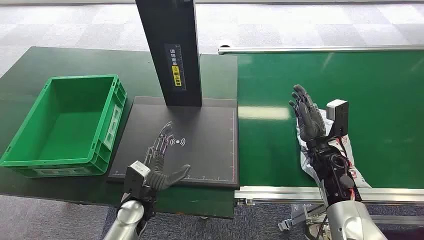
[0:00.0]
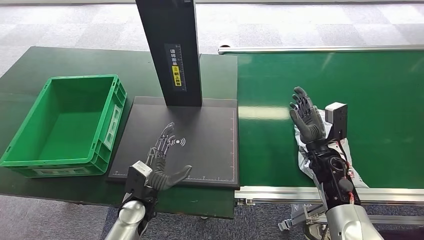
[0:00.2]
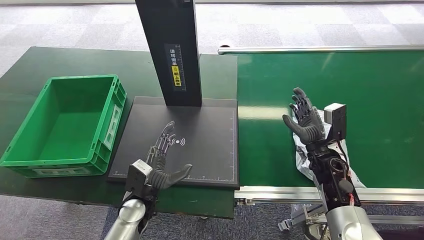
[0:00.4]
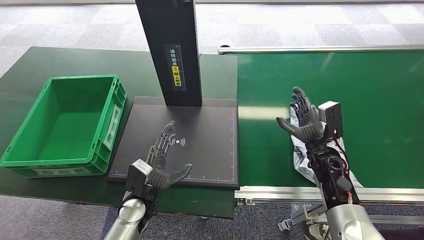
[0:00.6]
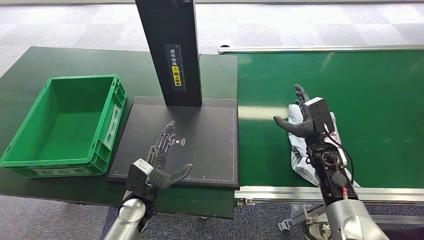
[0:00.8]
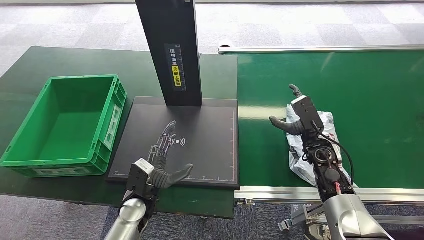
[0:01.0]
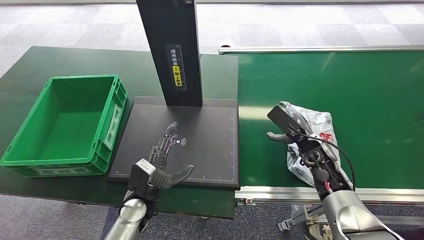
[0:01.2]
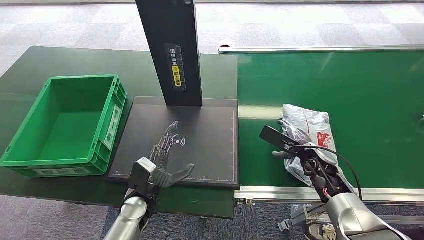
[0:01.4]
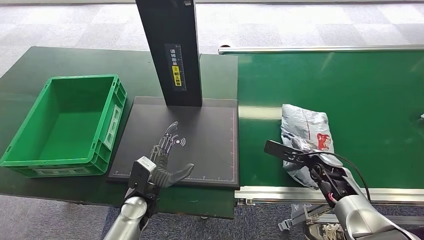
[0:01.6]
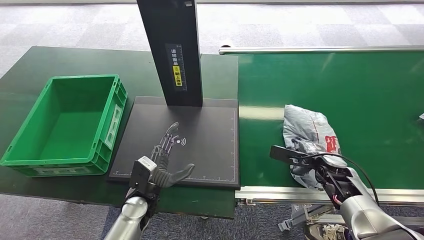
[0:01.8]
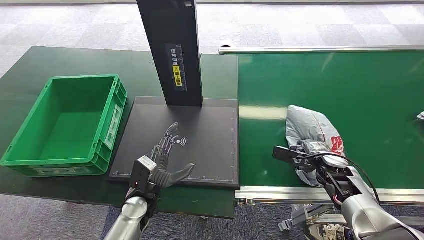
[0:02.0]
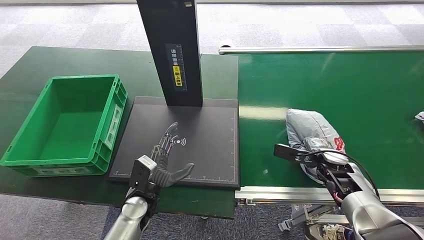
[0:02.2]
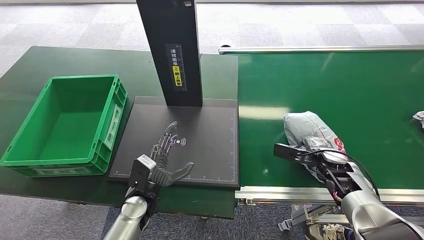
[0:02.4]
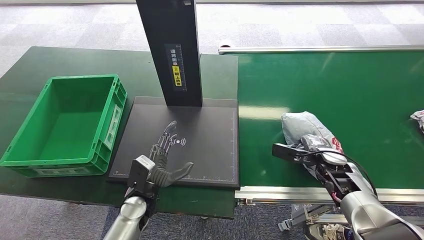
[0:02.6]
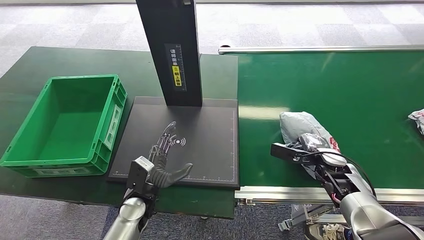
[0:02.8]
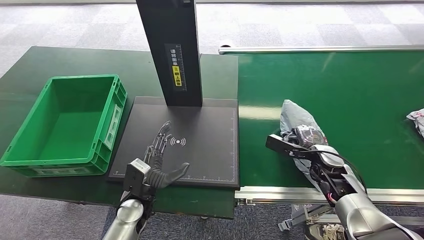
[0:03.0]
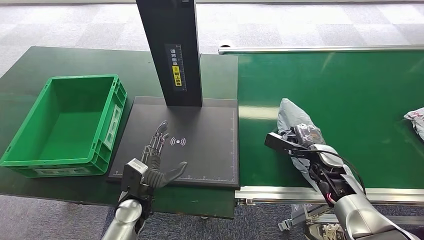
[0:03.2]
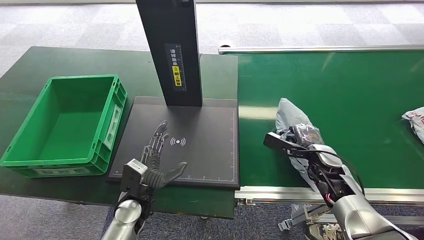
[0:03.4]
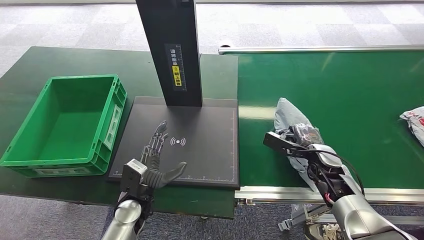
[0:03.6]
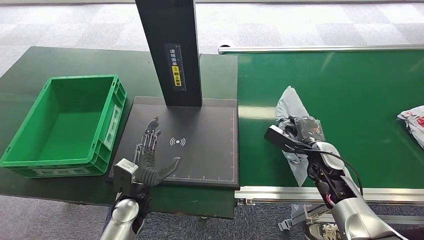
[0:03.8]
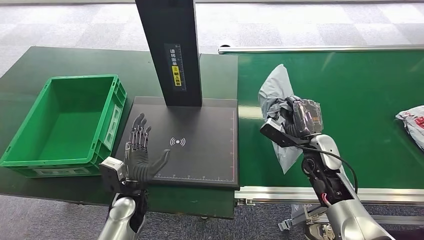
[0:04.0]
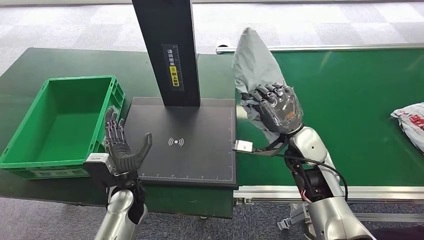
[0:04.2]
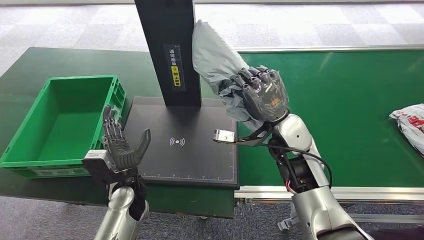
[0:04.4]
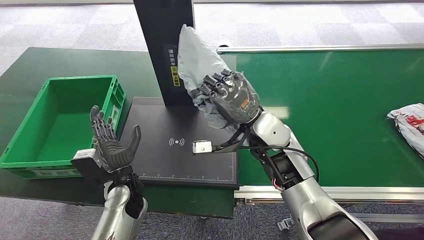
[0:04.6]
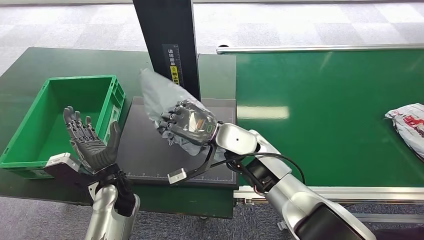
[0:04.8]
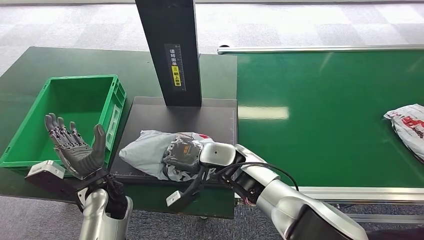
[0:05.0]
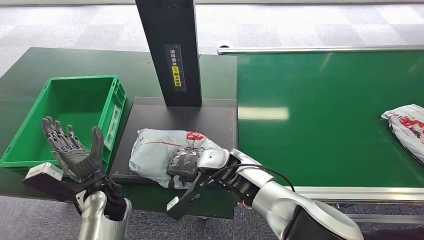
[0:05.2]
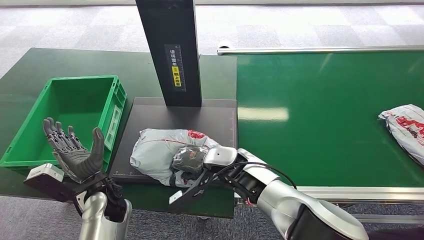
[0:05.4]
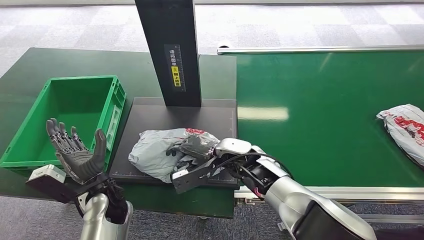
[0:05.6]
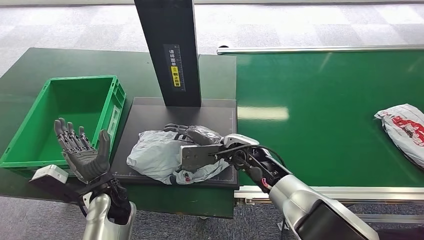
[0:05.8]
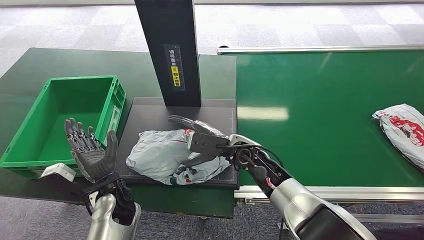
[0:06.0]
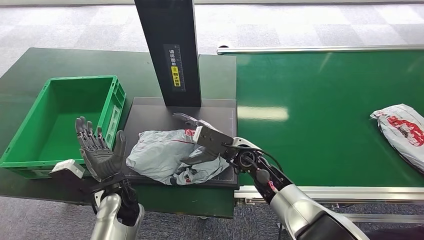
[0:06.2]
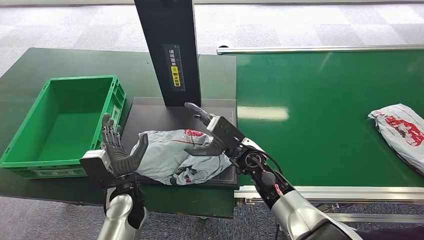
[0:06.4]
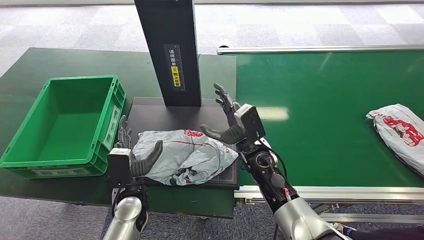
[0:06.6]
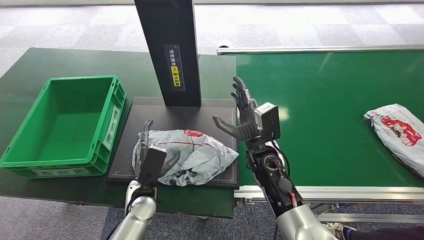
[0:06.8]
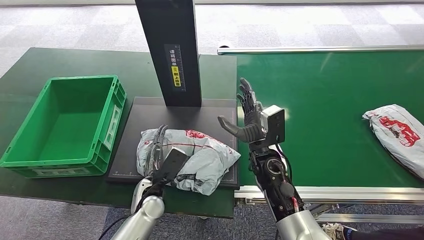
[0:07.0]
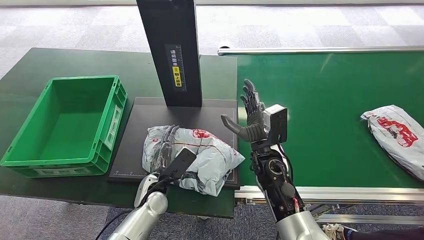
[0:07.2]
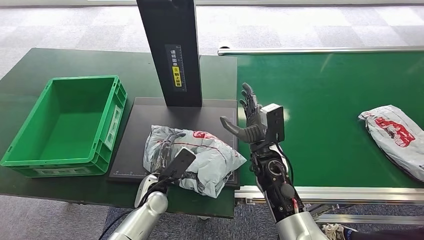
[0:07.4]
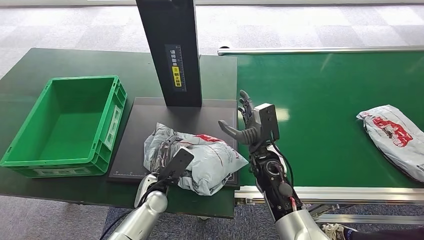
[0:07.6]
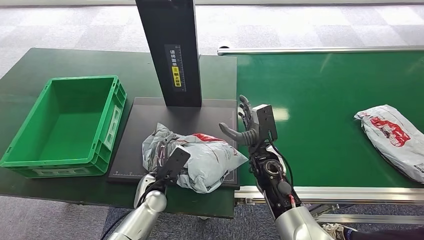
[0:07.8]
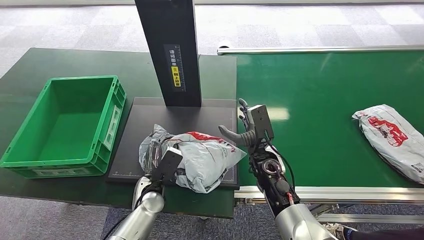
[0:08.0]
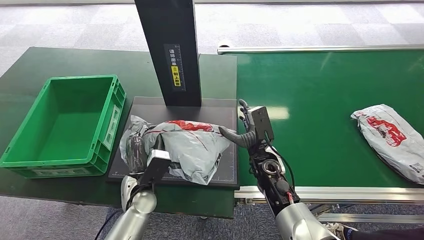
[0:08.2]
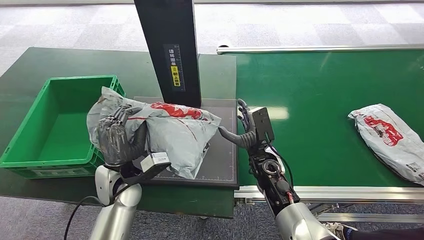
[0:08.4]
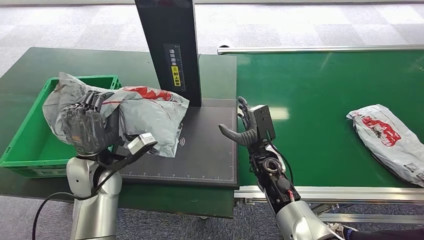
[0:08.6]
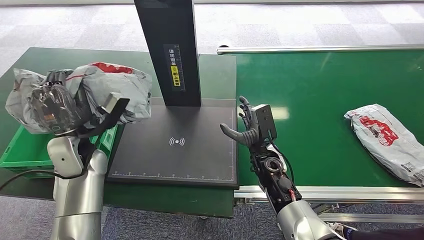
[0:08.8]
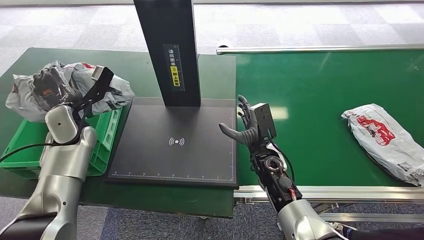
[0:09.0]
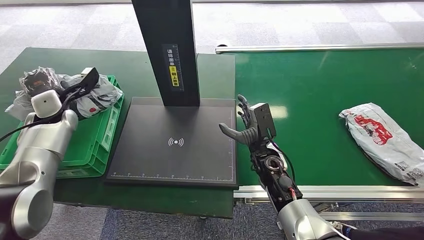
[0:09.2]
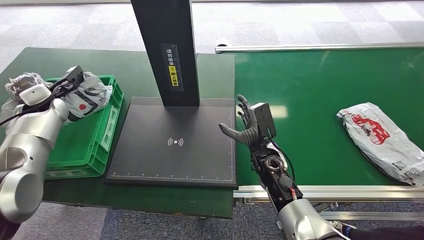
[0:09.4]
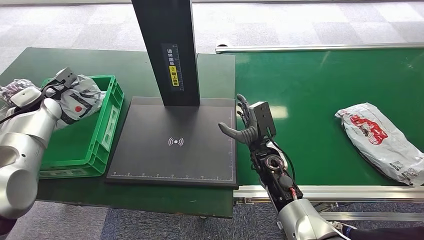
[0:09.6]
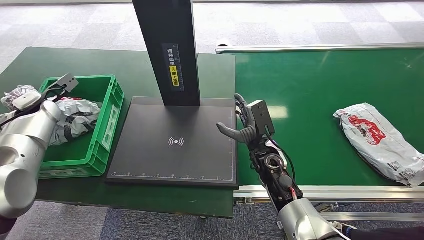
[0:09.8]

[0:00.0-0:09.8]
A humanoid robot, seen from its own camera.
Step, 0:00.0 to 0:04.0: Pick up the package from the conveyor belt.
Step, 0:04.4 to 0:05.8: Place the package onto the inbound machine.
Step, 0:06.0 to 0:08.2: Pick up the package from the inbound machine.
Step, 0:08.6 to 0:09.8: Place the package into the parcel locker.
0:05.6 to 0:07.0: The left hand travels to the right and downward by some 10 cm, while the right hand moves to the right, approximately 5 cm.

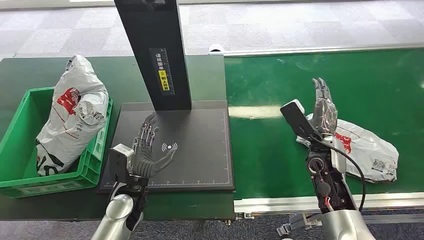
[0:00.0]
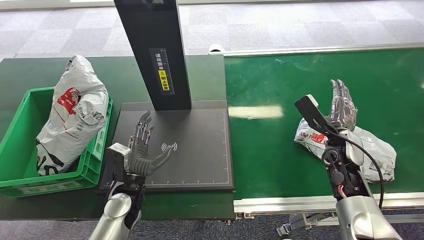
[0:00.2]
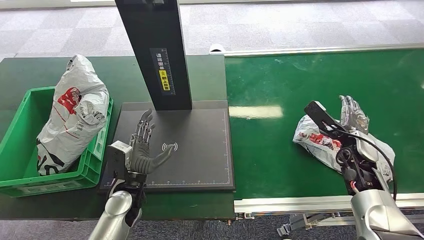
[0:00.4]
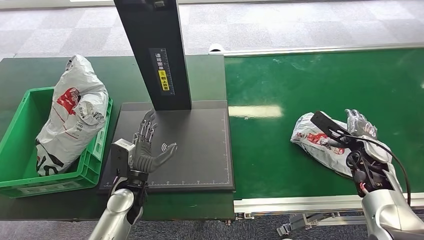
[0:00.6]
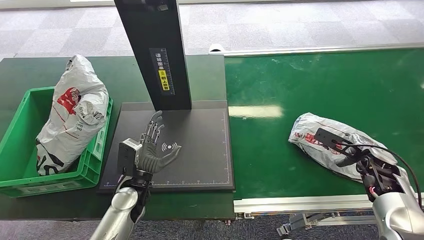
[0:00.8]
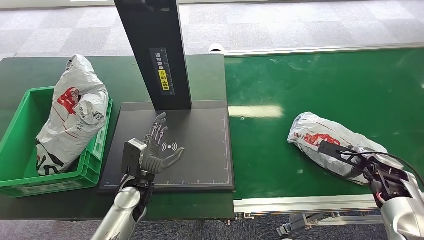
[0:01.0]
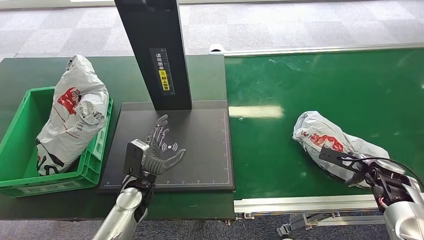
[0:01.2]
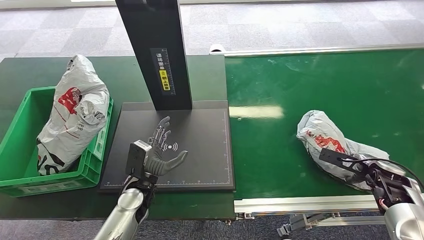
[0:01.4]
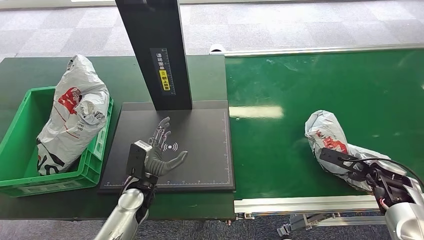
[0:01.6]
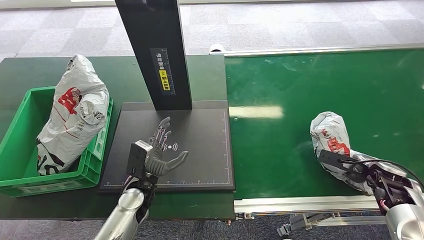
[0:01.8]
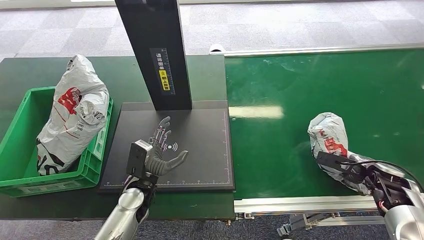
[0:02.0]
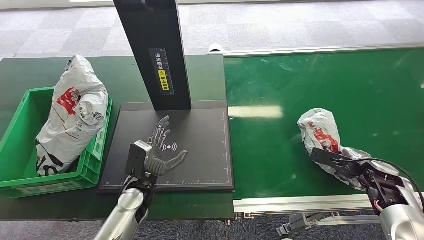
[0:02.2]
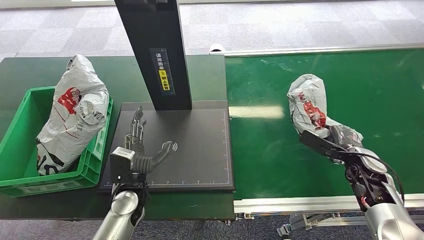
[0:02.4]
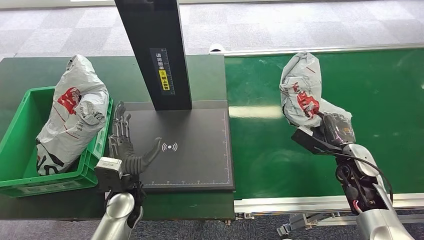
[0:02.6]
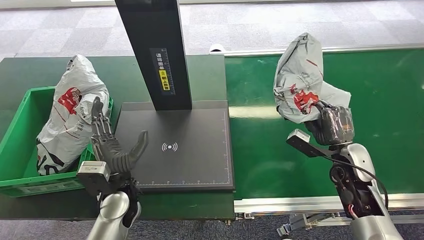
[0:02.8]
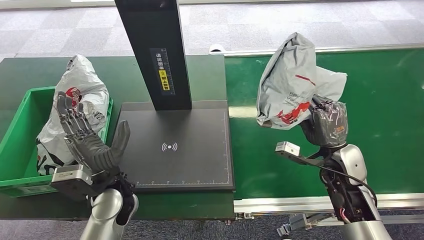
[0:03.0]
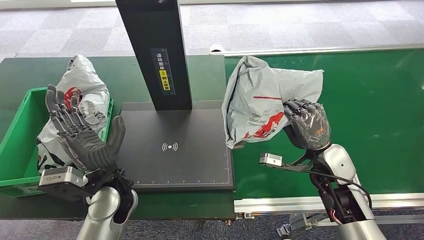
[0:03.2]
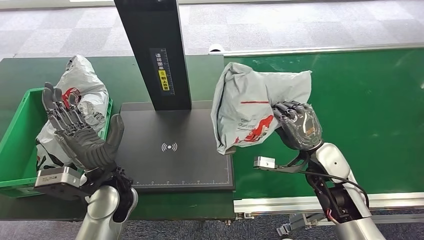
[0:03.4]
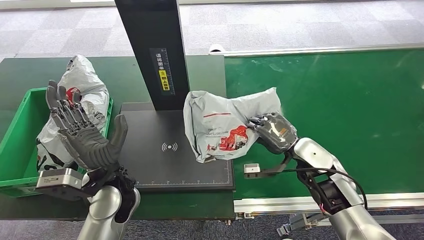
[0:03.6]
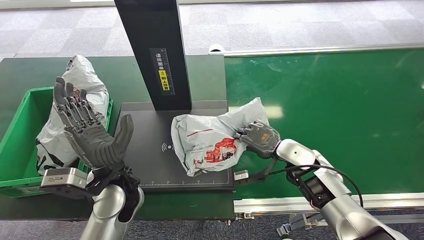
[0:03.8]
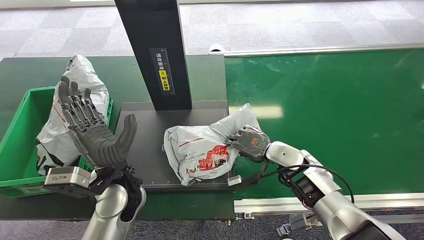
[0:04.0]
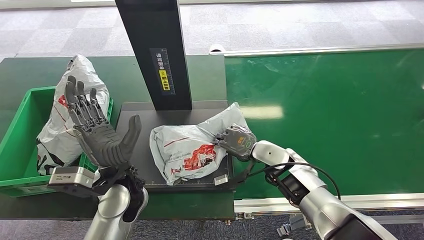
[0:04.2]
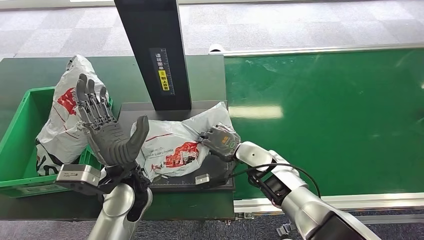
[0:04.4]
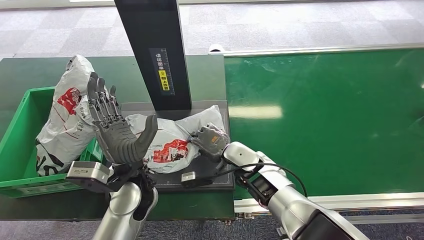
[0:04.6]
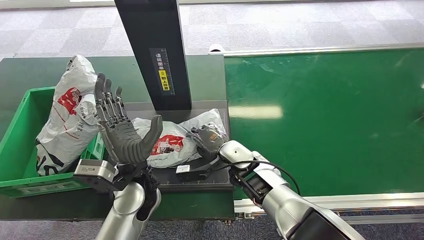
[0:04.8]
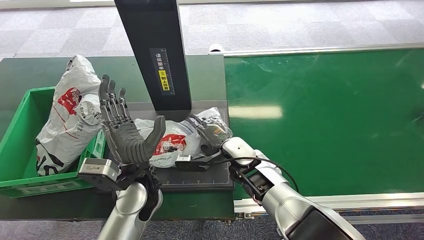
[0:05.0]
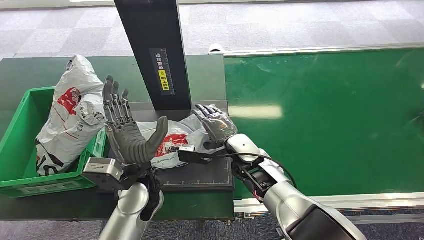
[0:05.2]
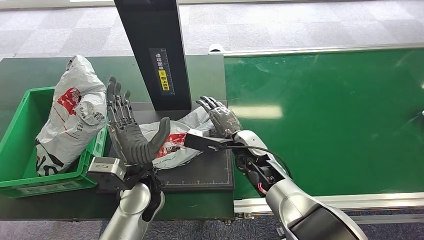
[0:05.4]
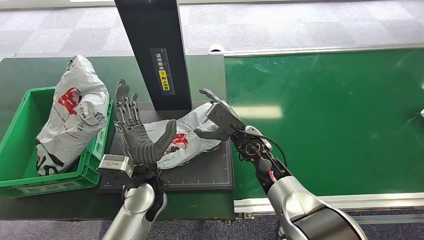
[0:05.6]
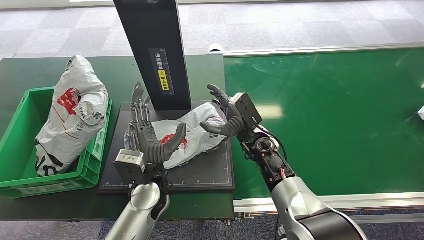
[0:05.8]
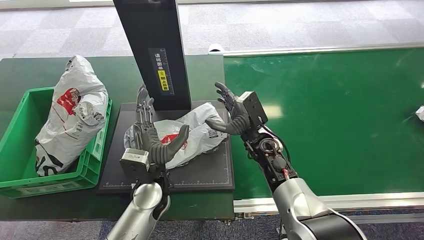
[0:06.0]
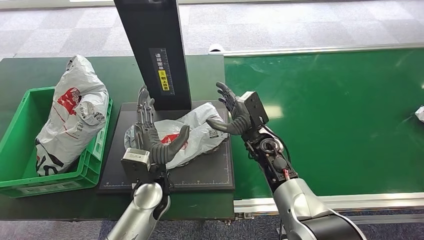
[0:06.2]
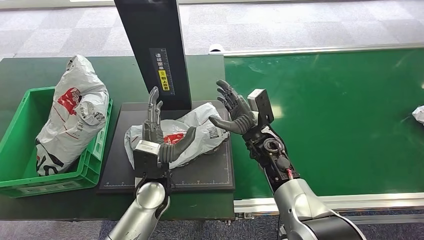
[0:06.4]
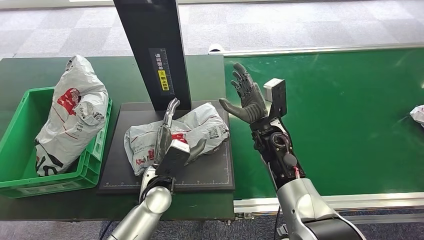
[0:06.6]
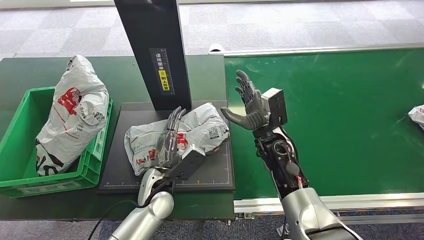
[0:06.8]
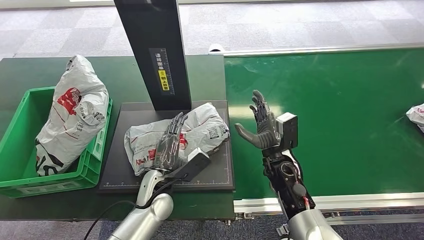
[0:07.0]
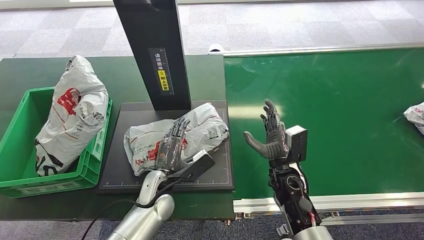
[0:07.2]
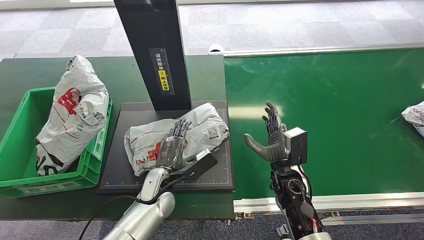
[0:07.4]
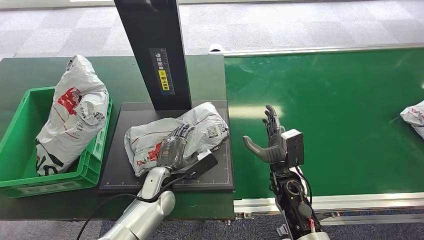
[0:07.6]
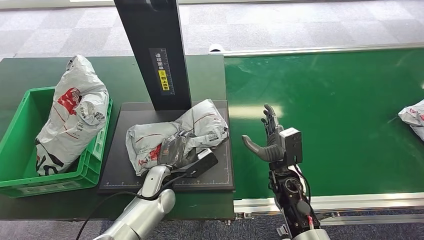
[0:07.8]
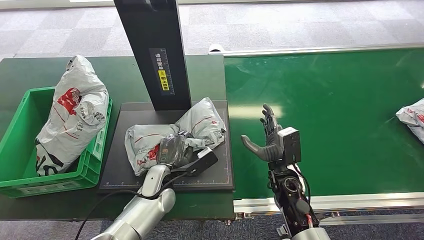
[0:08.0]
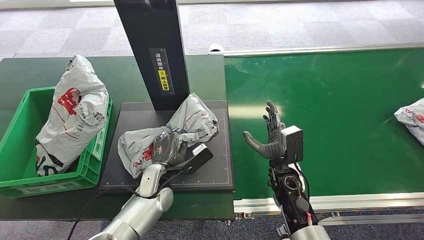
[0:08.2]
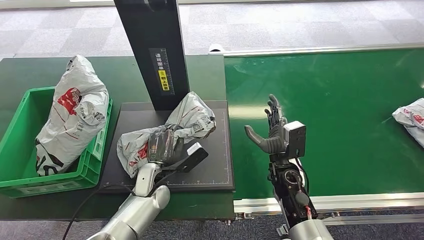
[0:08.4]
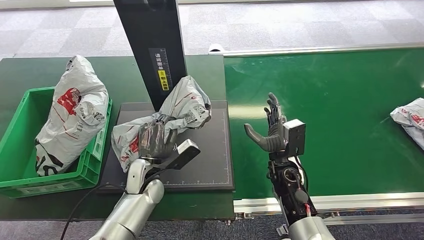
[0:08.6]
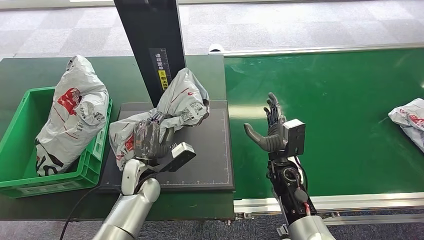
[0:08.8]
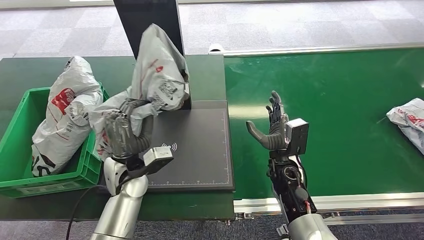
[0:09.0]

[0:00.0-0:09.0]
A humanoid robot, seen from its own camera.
Step, 0:00.0 to 0:03.0: Pick up the package from the conveyor belt.
Step, 0:03.2 to 0:06.4: Place the package onto the inbound machine.
0:04.4 to 0:06.0: The left hand changes place by some 5 cm.
0:06.0 to 0:07.6: The left hand is displaced downward by roughly 10 cm; the right hand moves backward, downward and to the right, roughly 10 cm.
